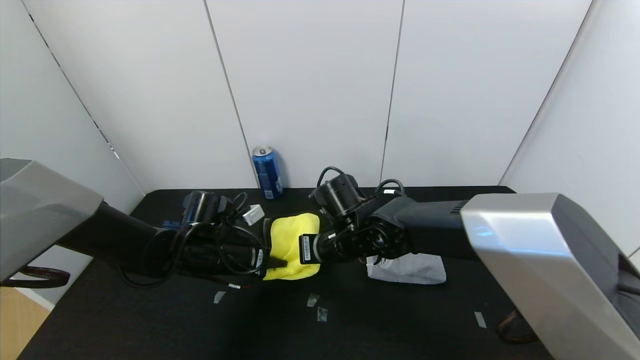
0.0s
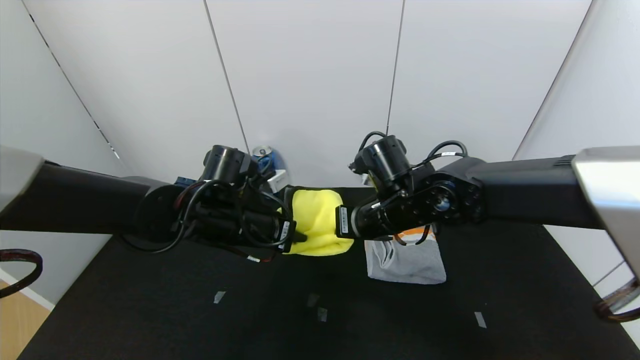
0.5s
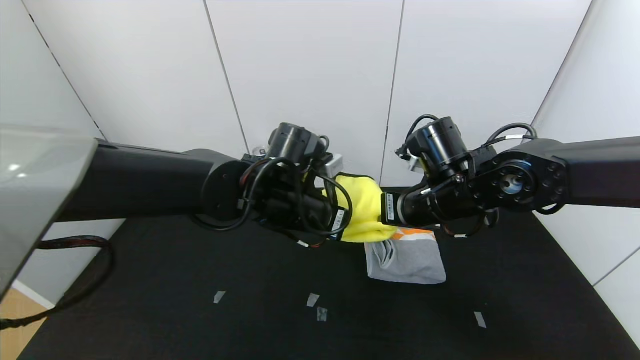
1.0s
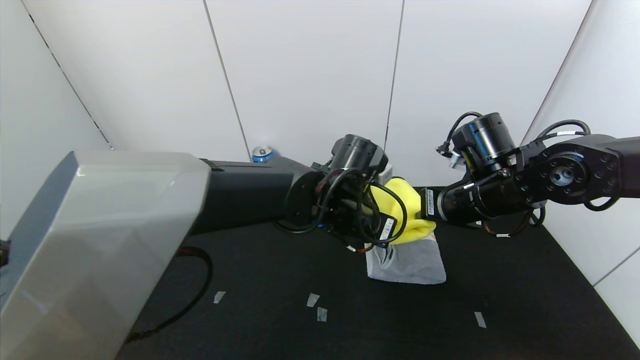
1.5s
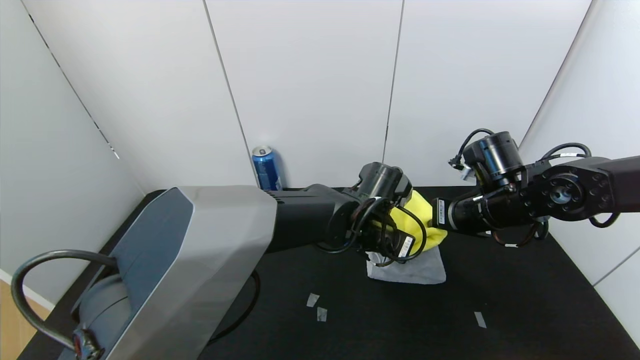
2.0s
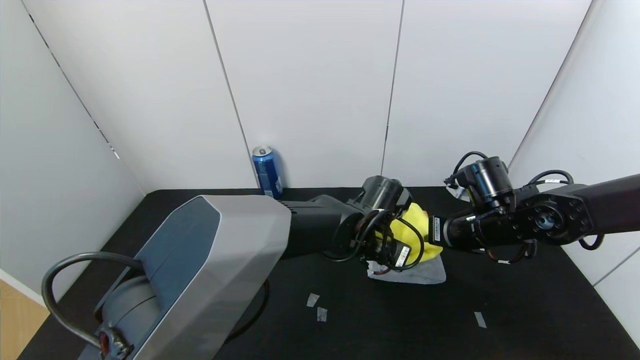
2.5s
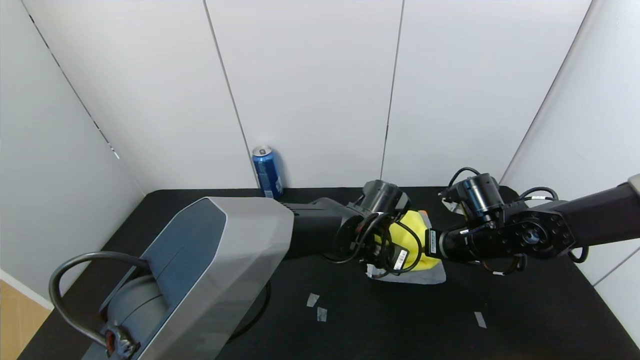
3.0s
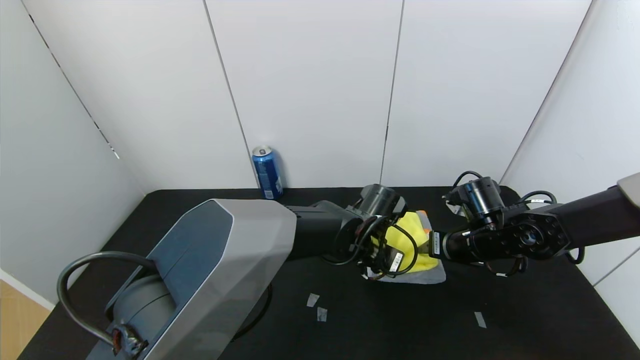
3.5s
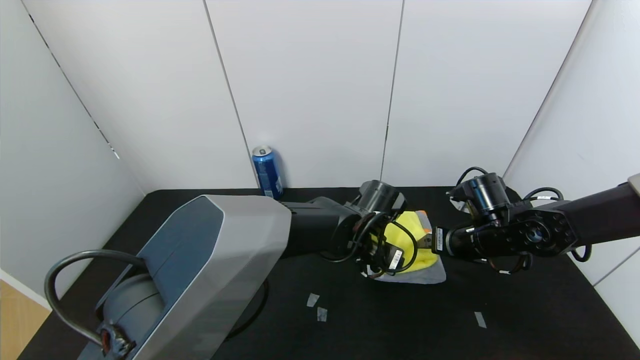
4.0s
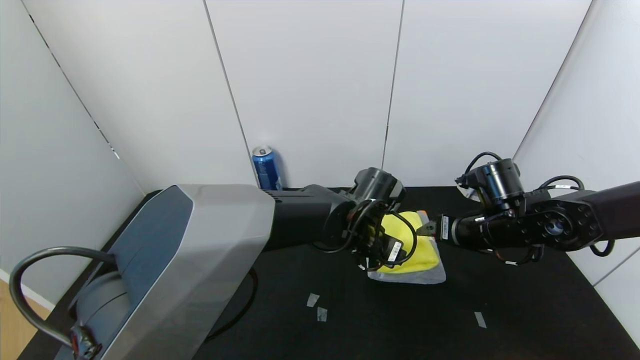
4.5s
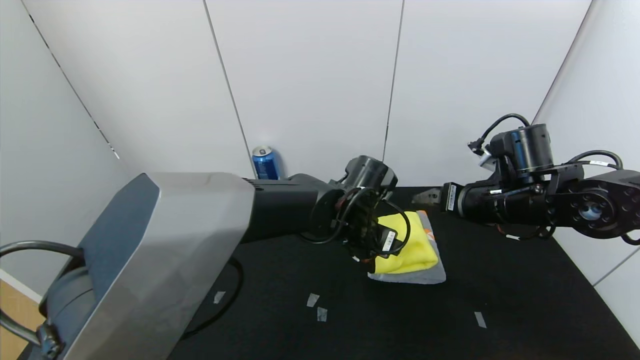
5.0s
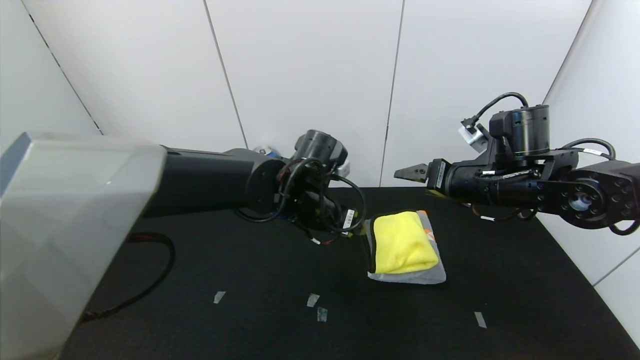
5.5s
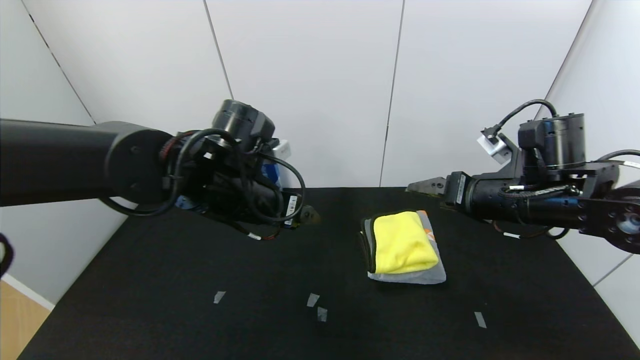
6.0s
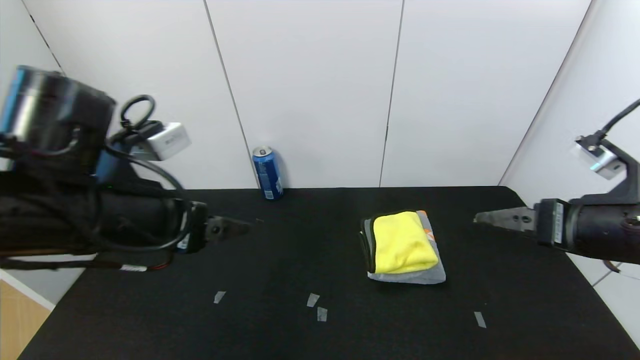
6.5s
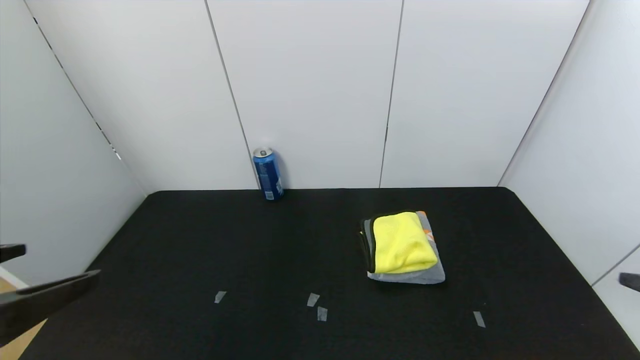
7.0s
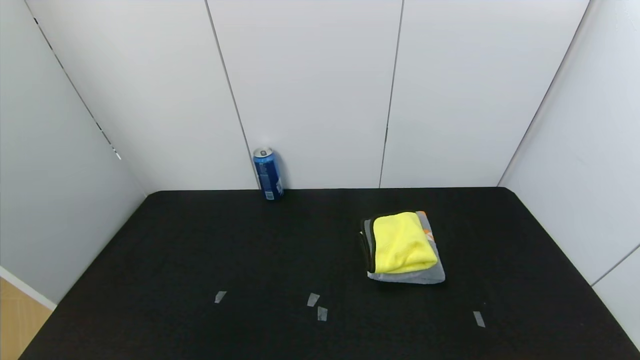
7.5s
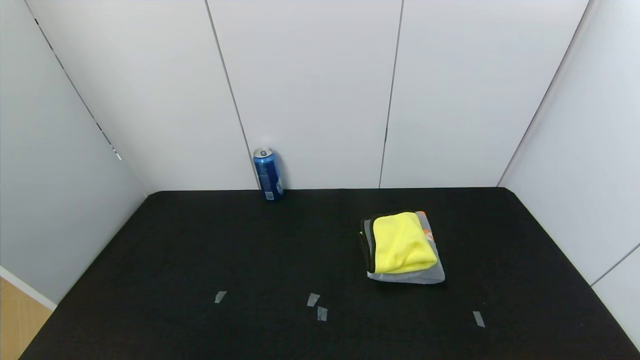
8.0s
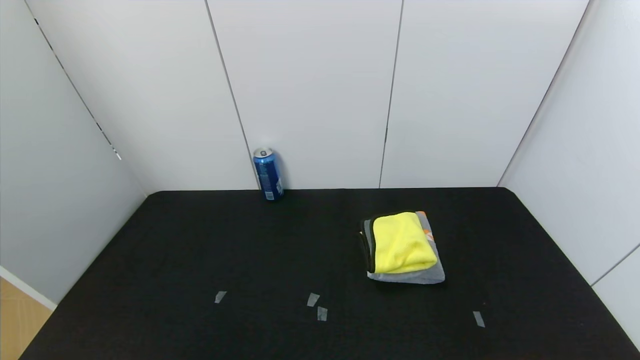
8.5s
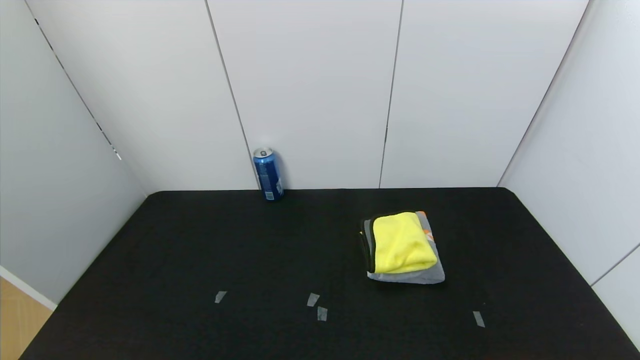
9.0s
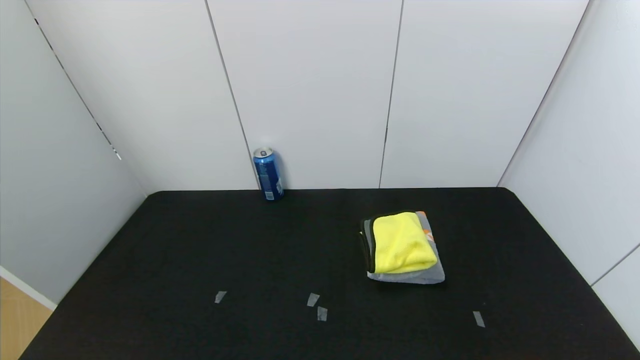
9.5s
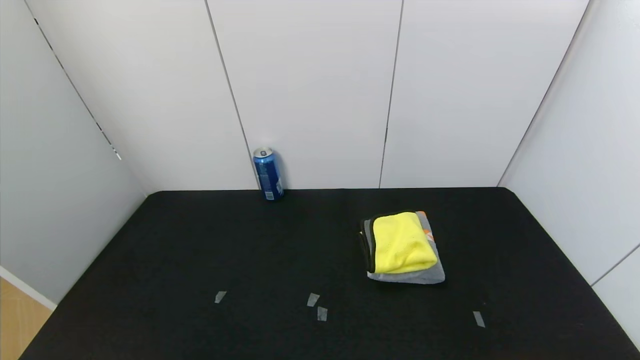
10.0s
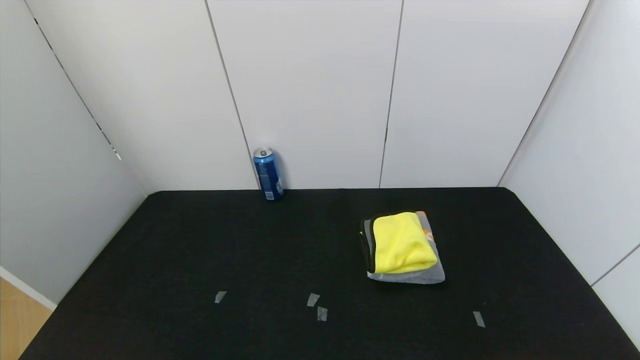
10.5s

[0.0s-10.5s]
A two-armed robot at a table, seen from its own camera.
Task of the whole recording: Use the gripper to fold the yellow towel and grey towel in half twice,then put the yellow towel on the grey towel.
Step, 0.0s to 4.5s: Place the yellow towel on the gray towel with the left gripper.
Step, 0.0s to 4.5s: Place the yellow towel on the gray towel with the right gripper.
0.0s to 2.0s: The two grippers go approximately 25 cm to the right.
2.0s to 4.0s: The right gripper heads downward, covering about 5 cm, and opens up. The left gripper opens.
4.0s to 6.5s: The left gripper goes some 35 cm to the left, upward and backward. Meanwhile the right gripper goes some 20 cm backward and upward.
6.5s to 8.5s: The grippers both shift backward by some 30 cm.
